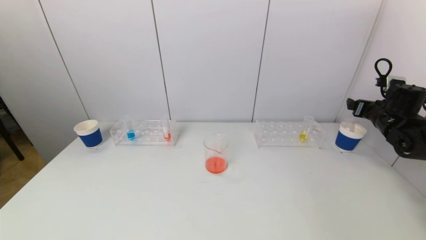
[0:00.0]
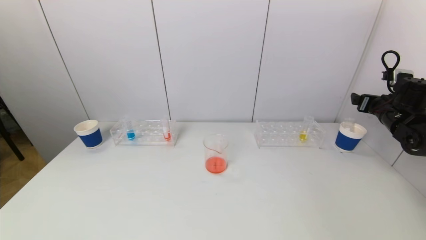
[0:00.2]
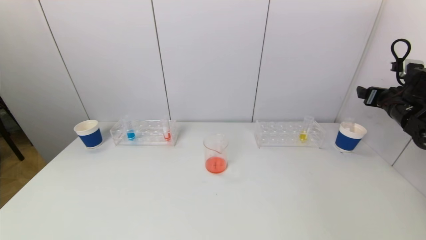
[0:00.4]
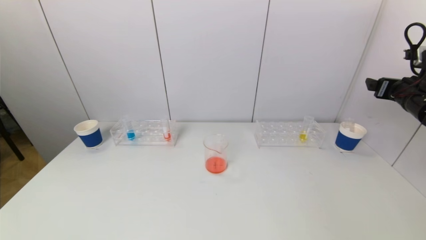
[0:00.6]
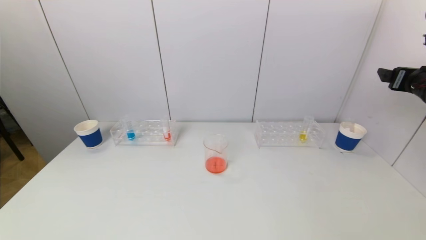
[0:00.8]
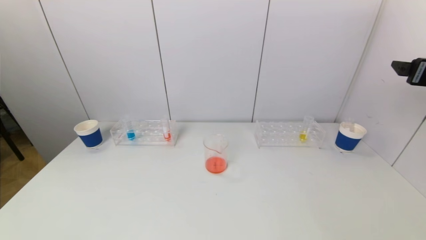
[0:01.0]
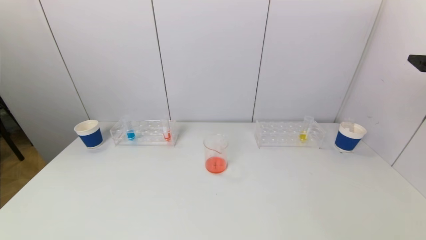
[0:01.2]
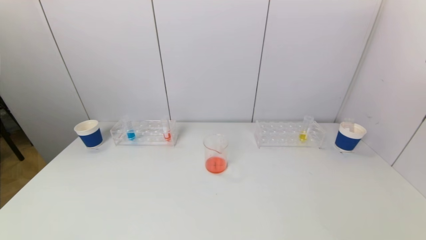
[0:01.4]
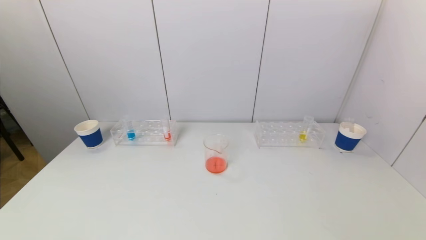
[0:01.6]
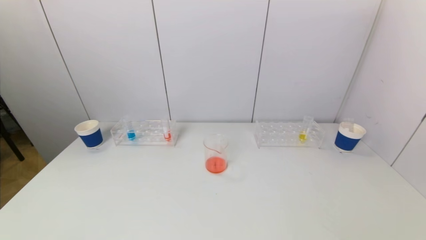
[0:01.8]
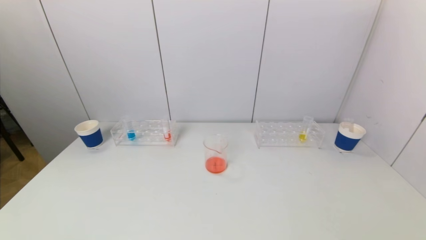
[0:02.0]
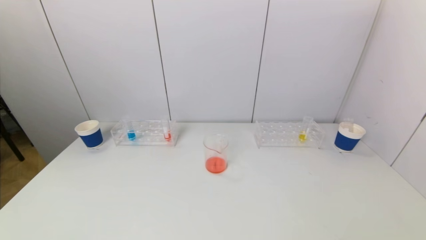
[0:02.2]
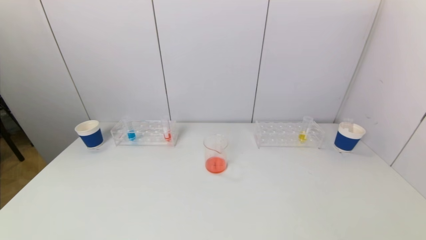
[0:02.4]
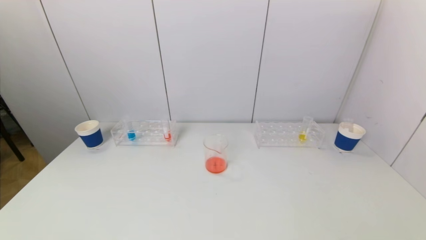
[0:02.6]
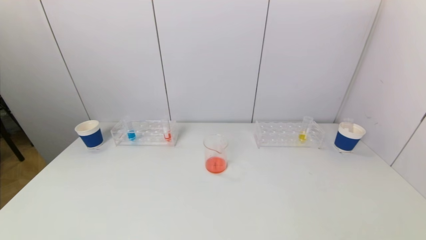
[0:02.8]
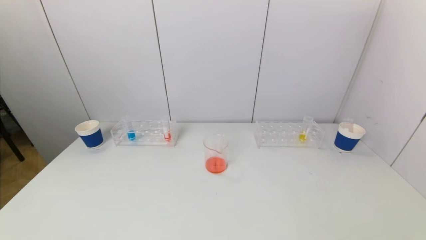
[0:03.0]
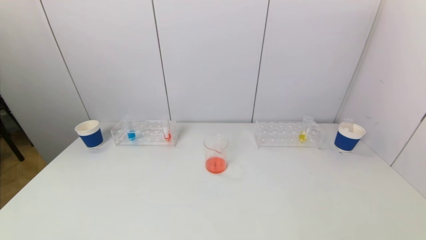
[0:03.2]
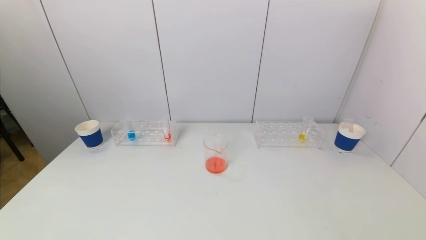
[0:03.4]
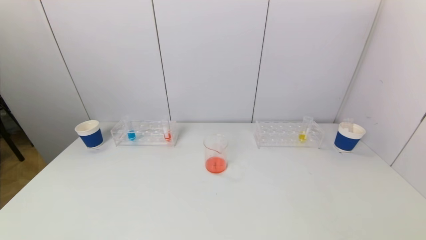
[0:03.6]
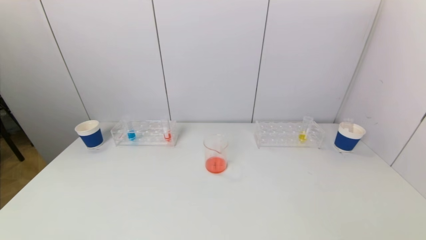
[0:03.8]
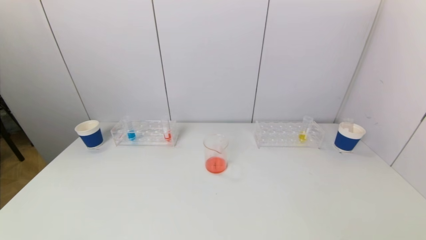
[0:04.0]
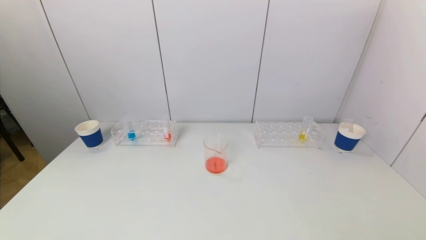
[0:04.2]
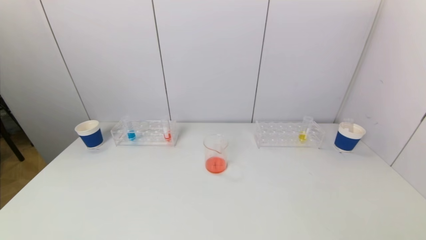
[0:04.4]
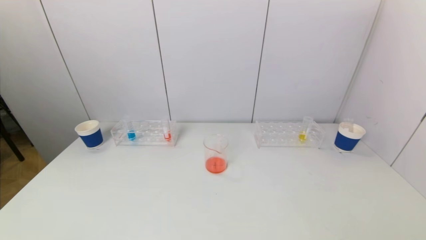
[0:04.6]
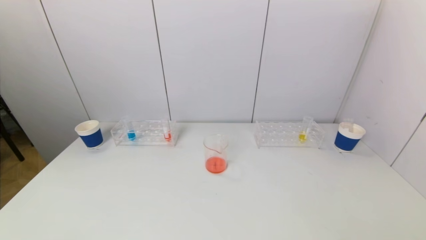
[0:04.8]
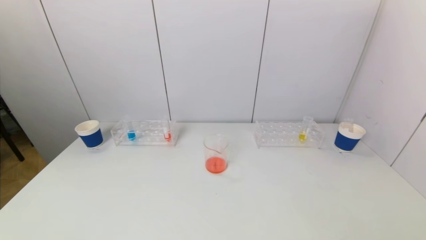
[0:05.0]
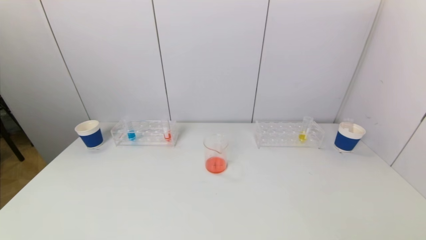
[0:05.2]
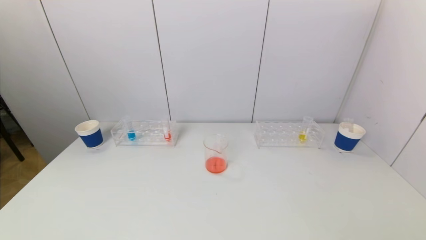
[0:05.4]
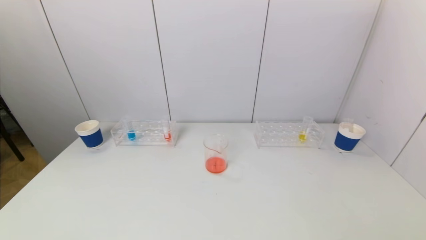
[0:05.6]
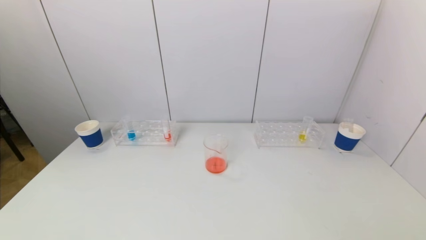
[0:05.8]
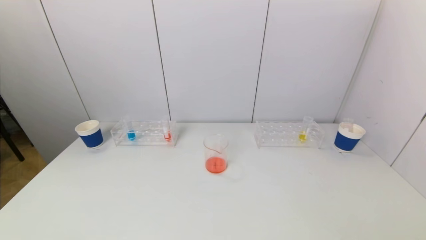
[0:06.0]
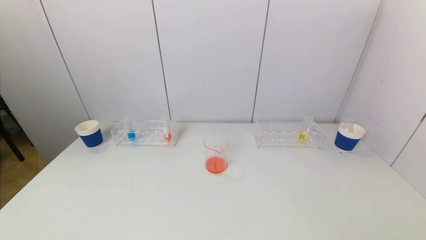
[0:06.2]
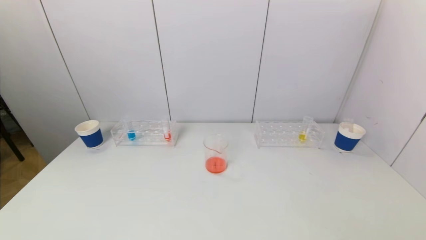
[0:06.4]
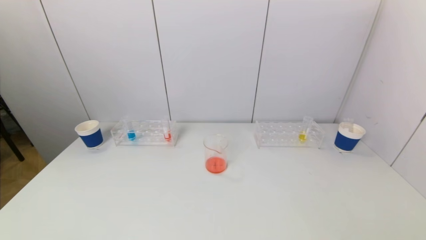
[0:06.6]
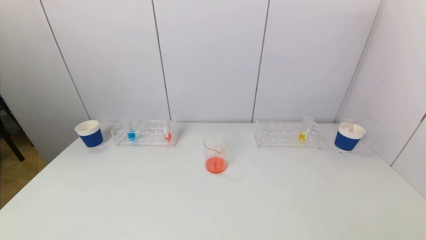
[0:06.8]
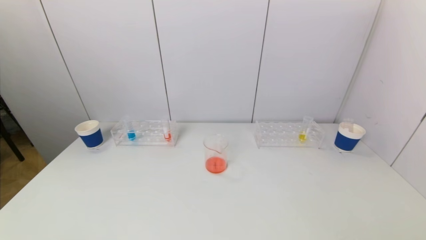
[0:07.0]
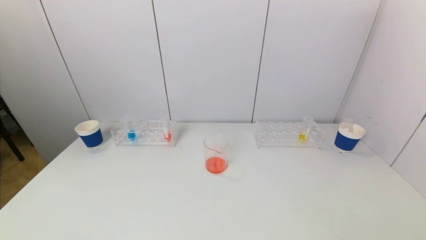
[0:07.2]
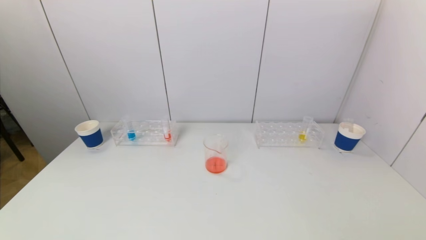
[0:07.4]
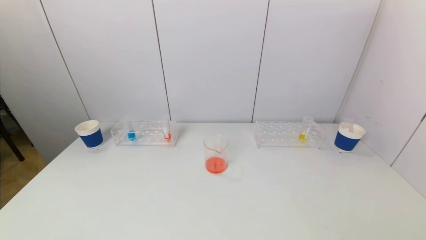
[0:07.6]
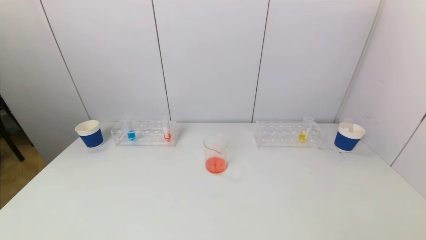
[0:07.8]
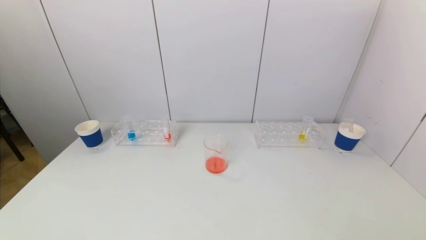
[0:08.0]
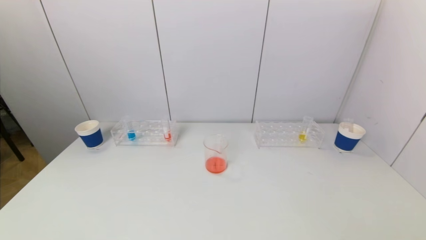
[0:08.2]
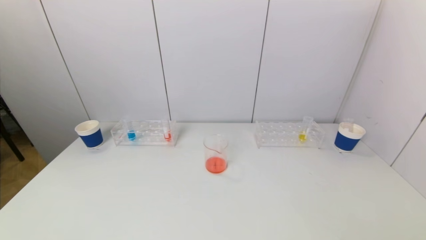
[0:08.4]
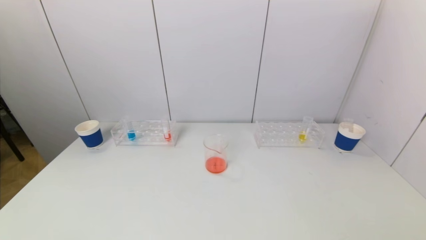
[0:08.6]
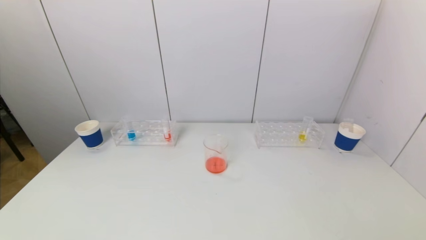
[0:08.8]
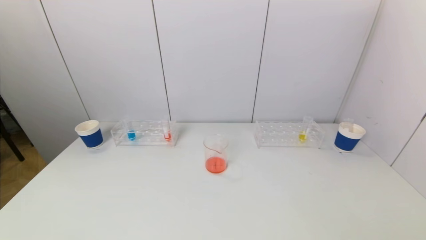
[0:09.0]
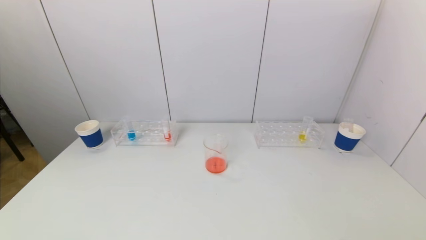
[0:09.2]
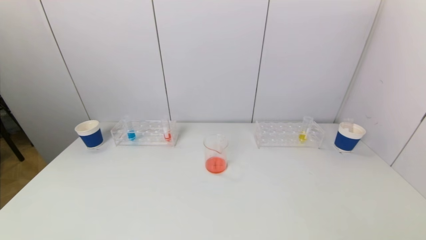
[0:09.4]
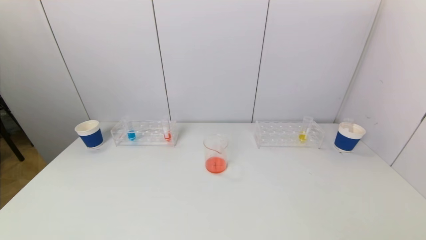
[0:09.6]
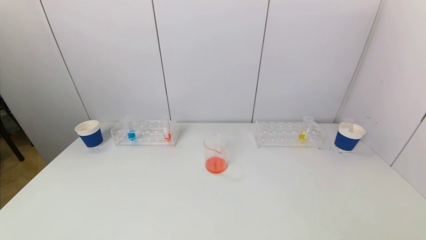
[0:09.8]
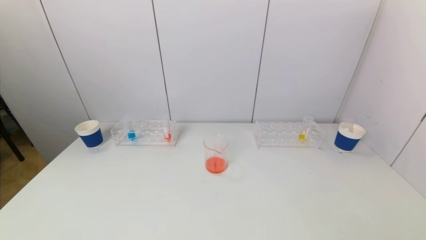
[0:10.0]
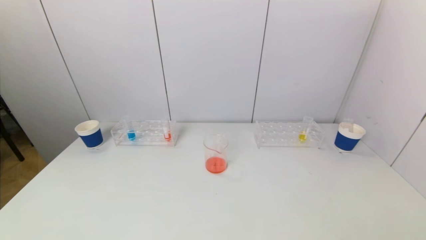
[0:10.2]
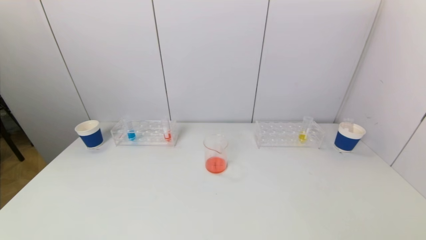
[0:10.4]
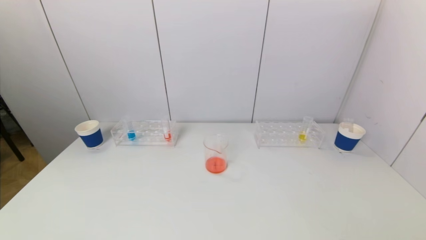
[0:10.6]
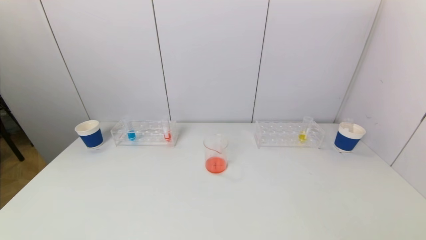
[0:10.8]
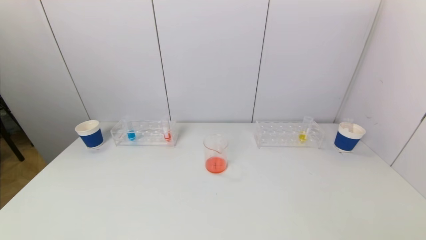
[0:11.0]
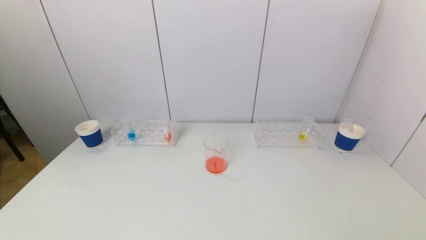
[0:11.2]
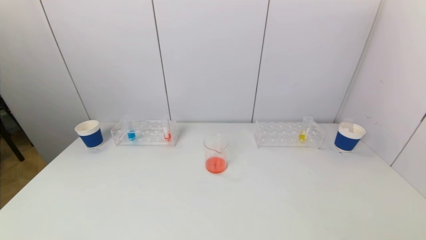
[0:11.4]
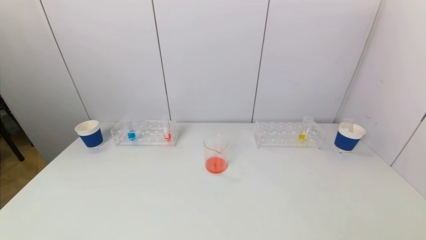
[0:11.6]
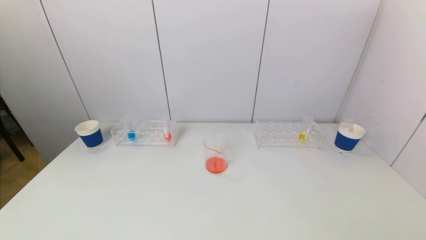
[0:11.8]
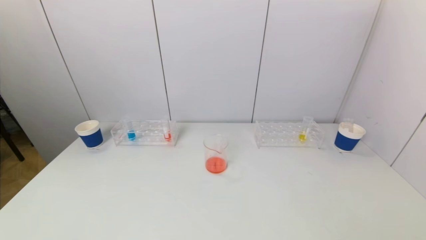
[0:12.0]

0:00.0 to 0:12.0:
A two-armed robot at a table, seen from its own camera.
Task of the whole recording: pick up a test tube with pigment on left test tube rack and a test tube with pigment on right test tube rack by grippers and pour them into the beaker.
0:00.0 to 0:01.6: The right gripper goes approximately 35 cm backward and upward.
0:06.0 to 0:12.0: Both grippers stay about where they are.

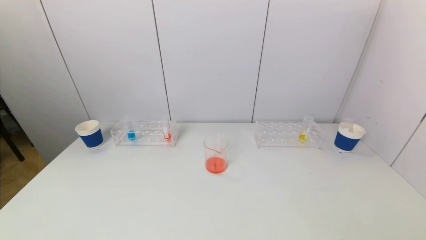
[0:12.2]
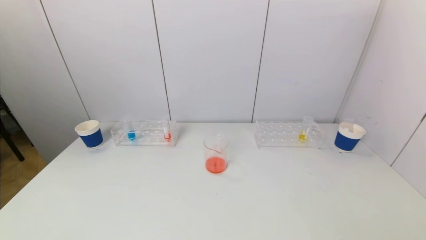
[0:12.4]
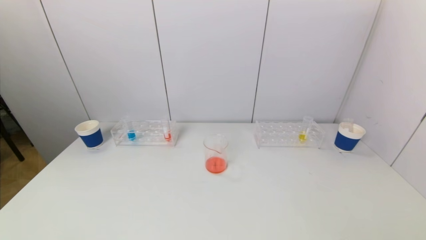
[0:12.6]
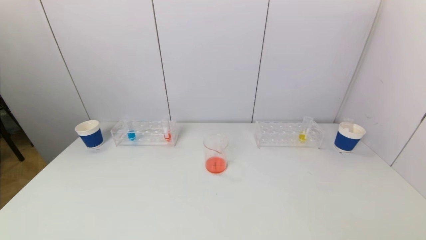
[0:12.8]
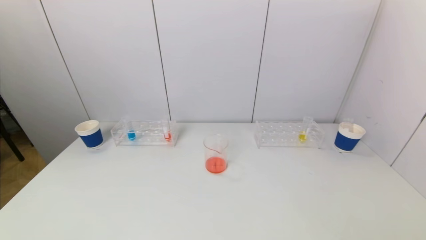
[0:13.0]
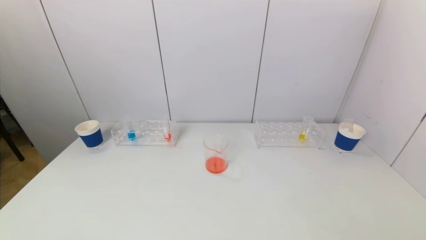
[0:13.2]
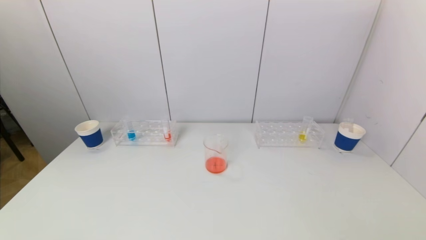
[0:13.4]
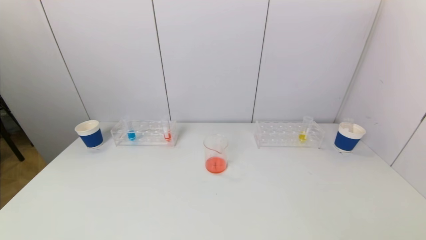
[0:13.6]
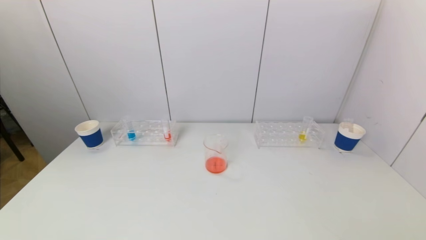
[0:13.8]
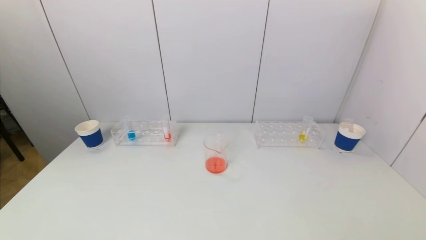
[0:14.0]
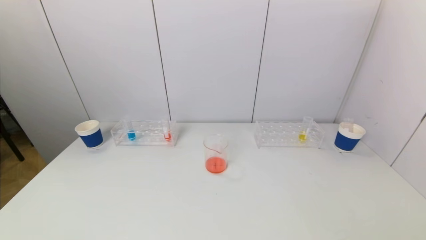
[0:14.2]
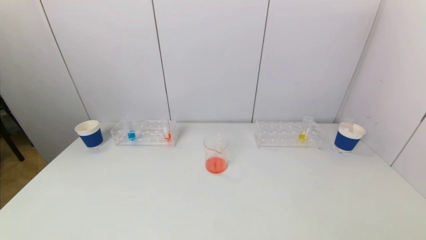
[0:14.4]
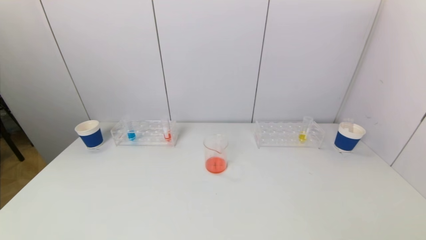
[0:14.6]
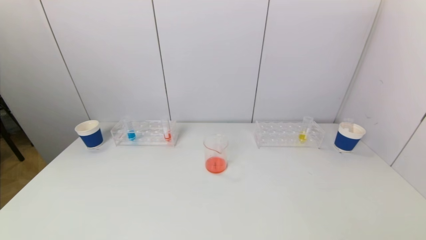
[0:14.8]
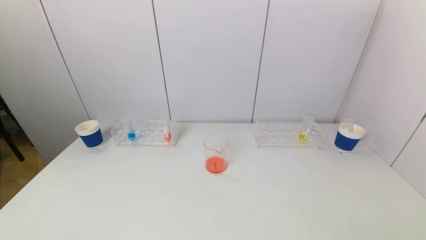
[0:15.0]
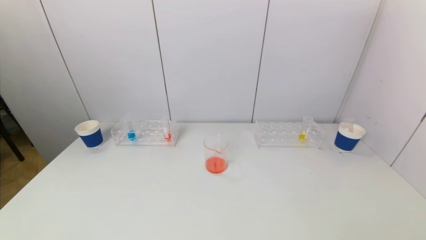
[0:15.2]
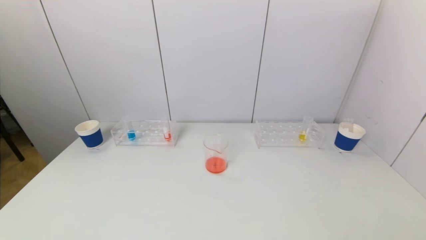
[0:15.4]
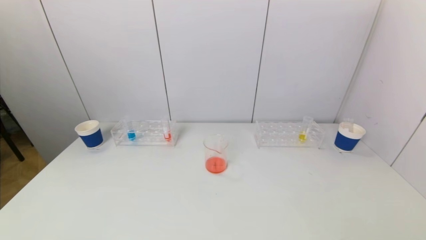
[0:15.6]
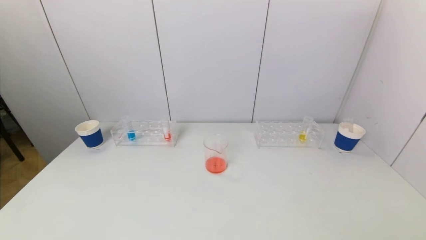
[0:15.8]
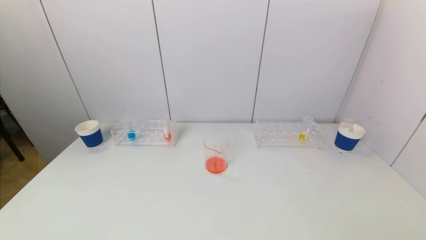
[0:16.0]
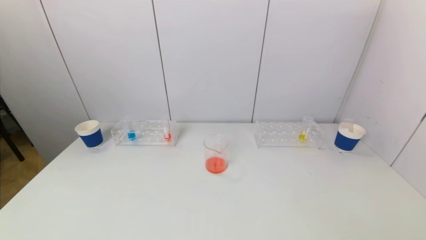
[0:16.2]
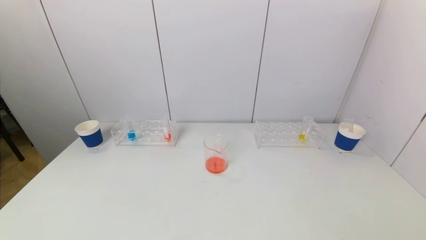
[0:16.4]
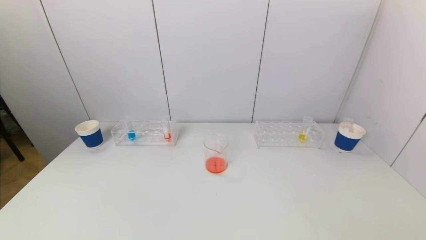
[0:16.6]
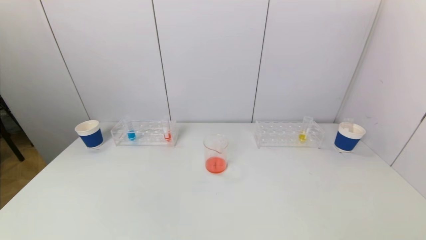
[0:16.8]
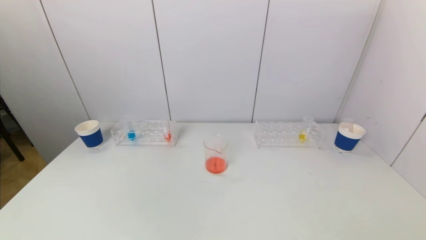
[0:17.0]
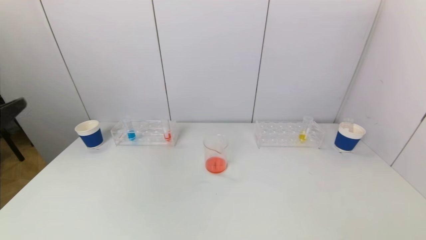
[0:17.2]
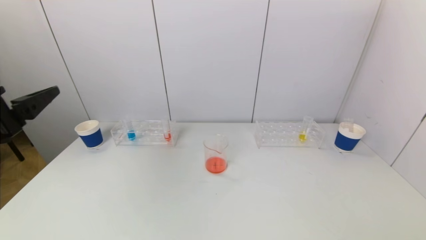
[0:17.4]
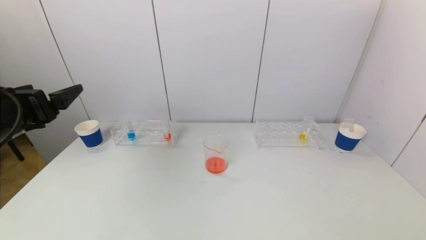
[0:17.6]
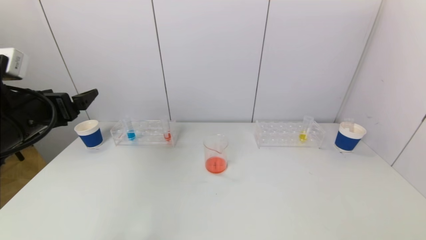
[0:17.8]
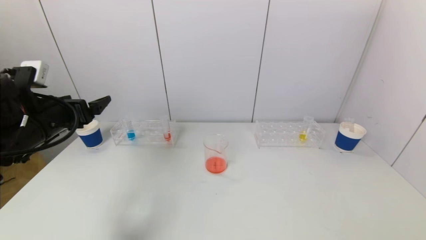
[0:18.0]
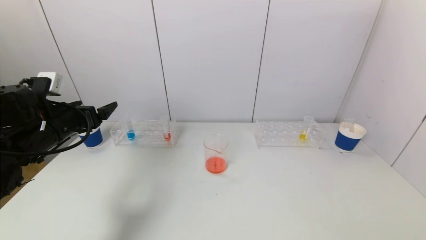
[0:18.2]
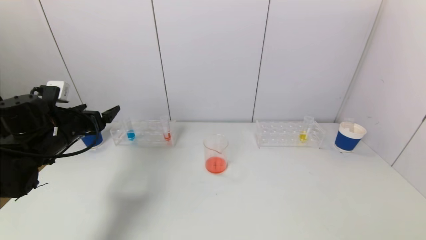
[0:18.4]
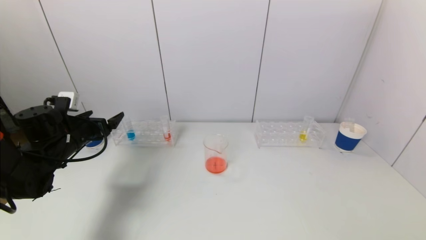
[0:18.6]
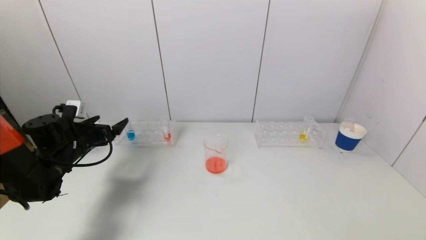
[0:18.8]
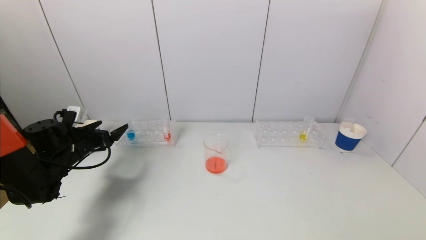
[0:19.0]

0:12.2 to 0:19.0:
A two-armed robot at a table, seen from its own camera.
Task of the whole recording: pick up a test tube with pigment on left test tube rack and a test tube with pigment on right test tube rack by grippers and pour them into the beaker.
0:12.2 to 0:15.0: The two grippers keep their place.
0:16.2 to 0:17.6: The left gripper shifts about 25 cm forward and upward.
0:17.6 to 0:19.0: The left gripper shifts roughly 25 cm downward and forward.
